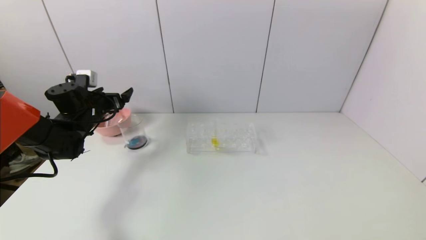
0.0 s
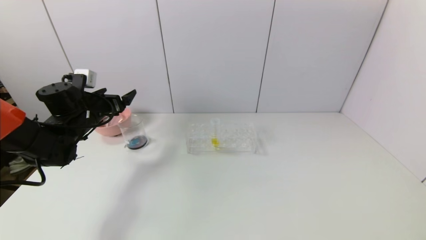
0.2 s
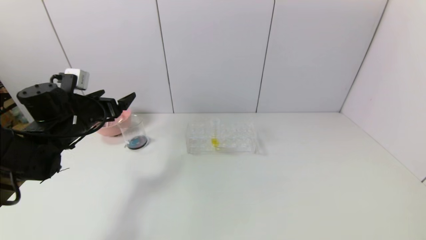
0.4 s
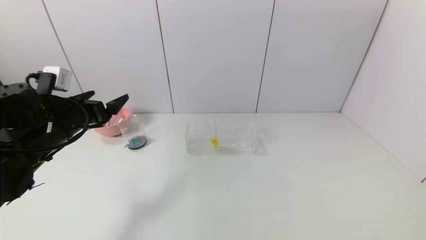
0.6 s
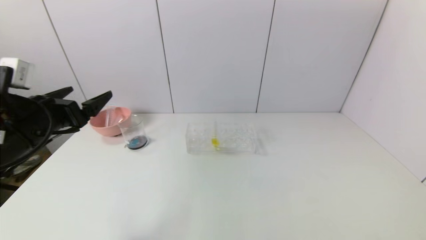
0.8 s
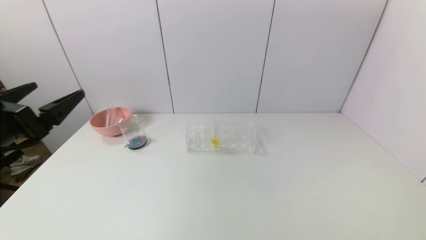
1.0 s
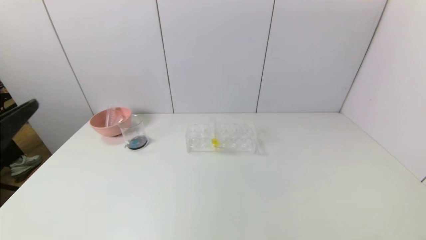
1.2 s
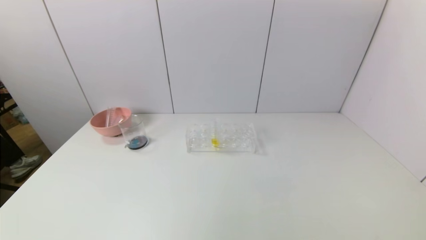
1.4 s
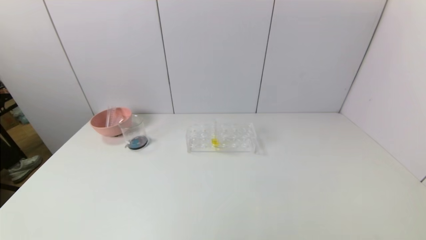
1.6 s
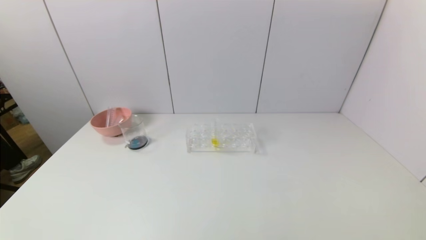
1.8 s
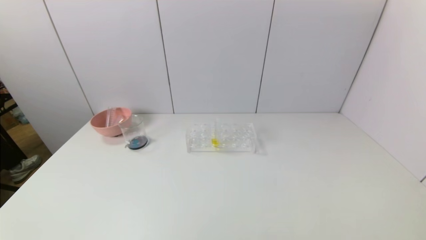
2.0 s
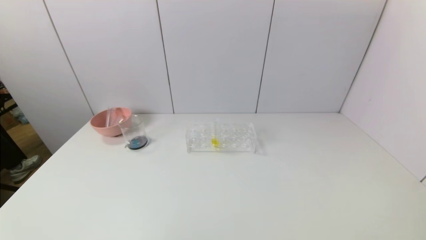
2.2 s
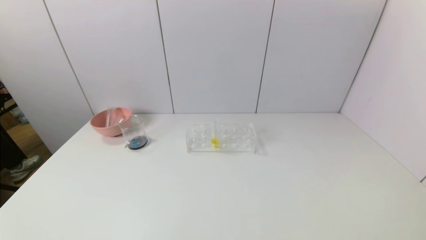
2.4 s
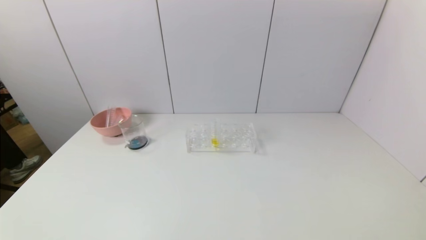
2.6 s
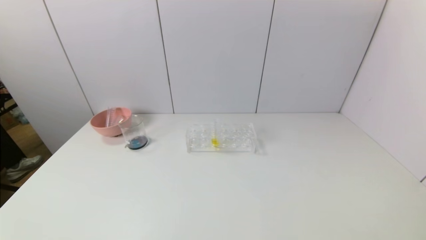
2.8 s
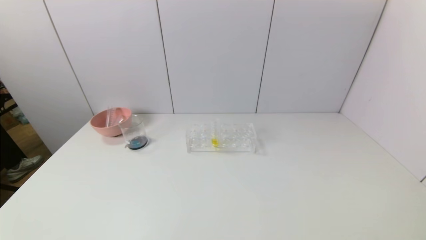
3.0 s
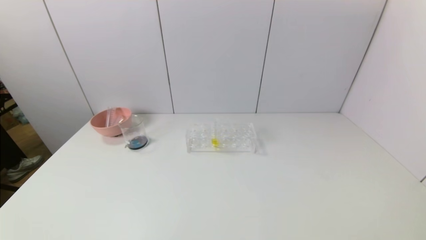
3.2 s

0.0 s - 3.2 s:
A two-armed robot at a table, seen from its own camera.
Task of the whole recording: pick up the test tube with red pigment and the test tube with blue pigment by grippers and pour them into the container.
0.0 s - 1.6 s: The left gripper travels backward by some 40 cm.
